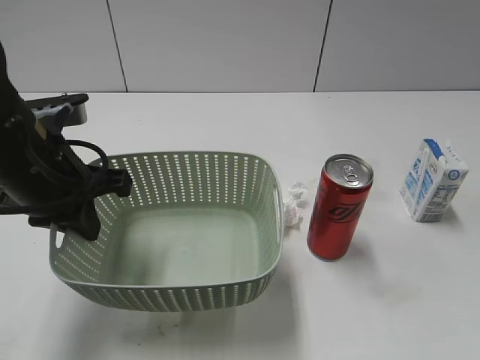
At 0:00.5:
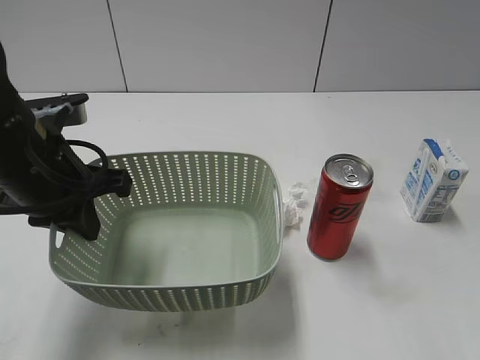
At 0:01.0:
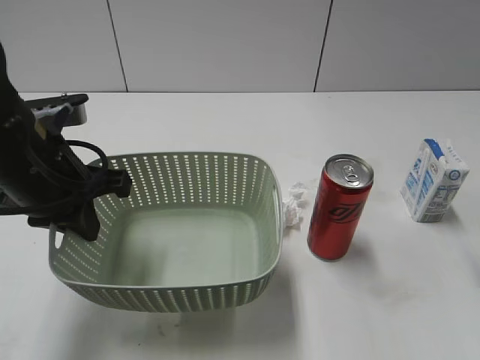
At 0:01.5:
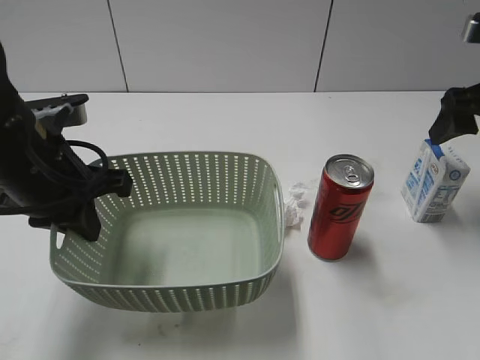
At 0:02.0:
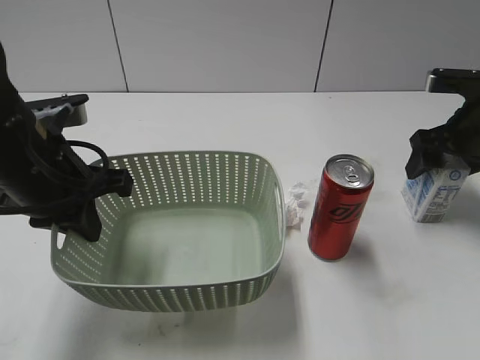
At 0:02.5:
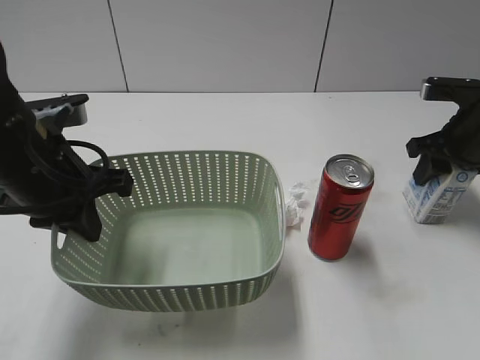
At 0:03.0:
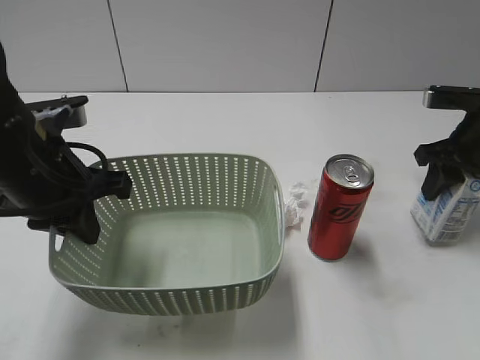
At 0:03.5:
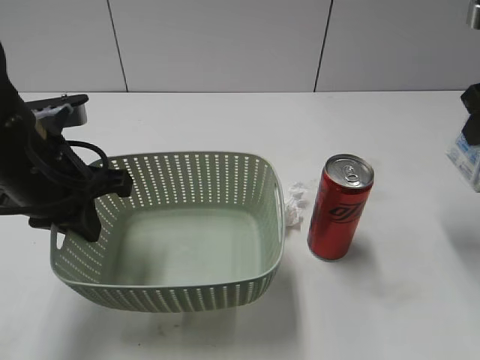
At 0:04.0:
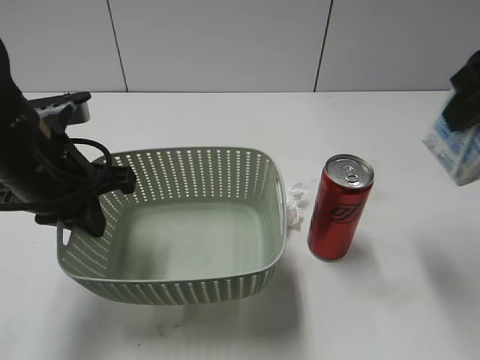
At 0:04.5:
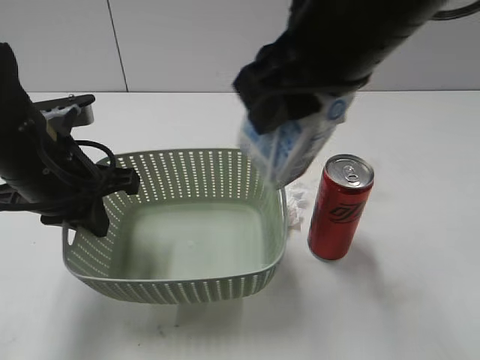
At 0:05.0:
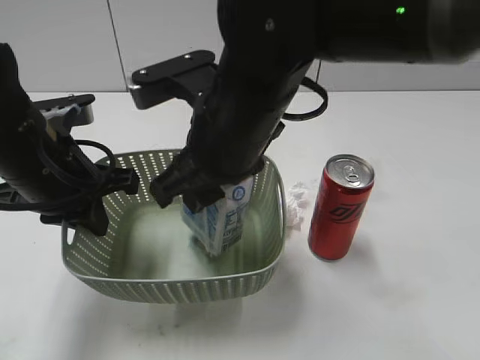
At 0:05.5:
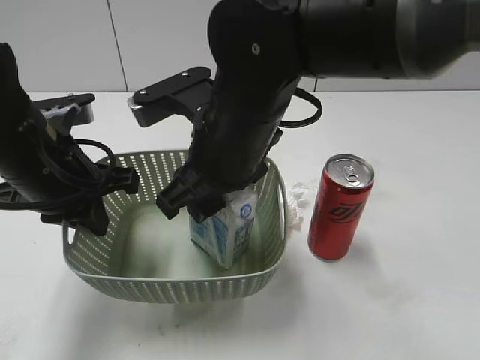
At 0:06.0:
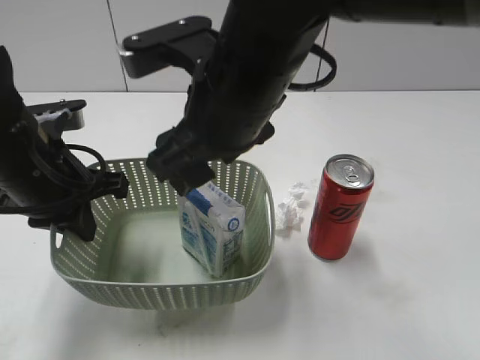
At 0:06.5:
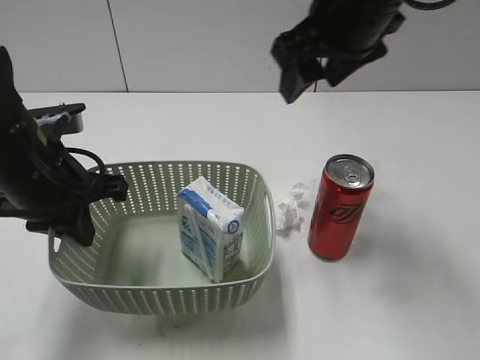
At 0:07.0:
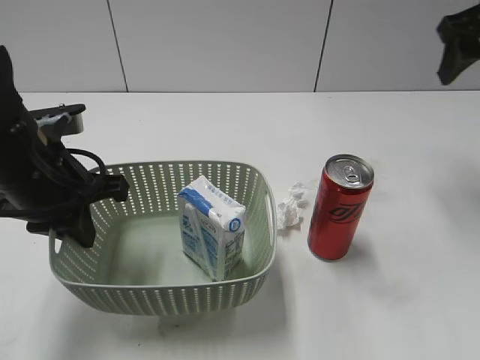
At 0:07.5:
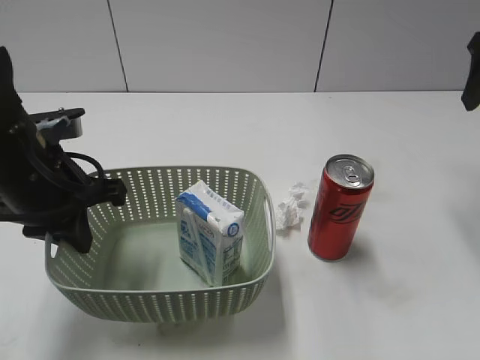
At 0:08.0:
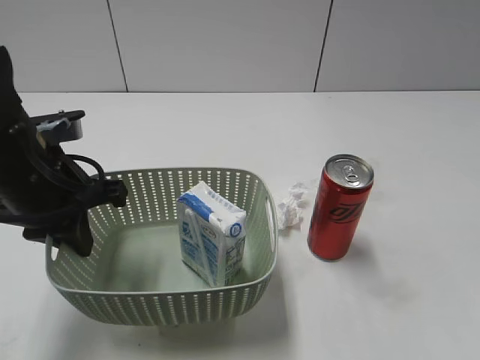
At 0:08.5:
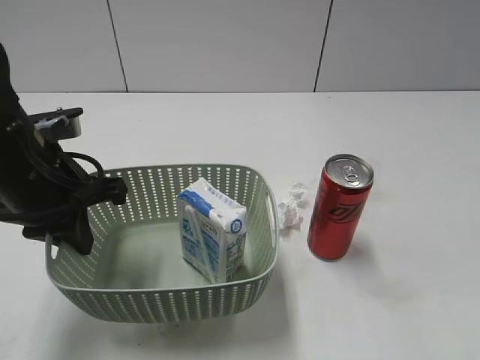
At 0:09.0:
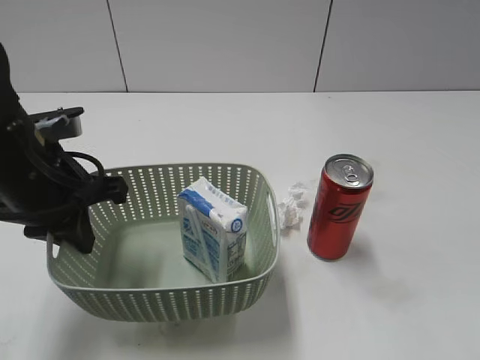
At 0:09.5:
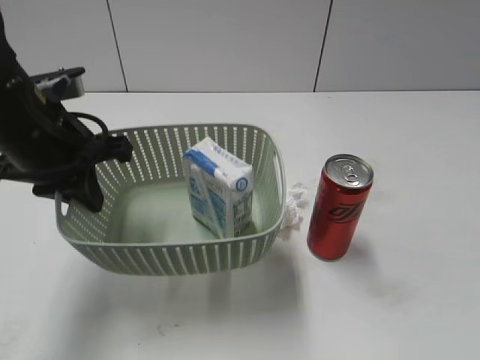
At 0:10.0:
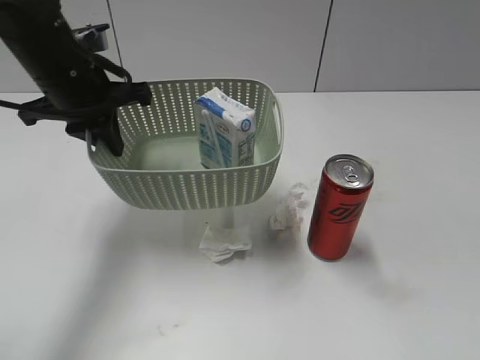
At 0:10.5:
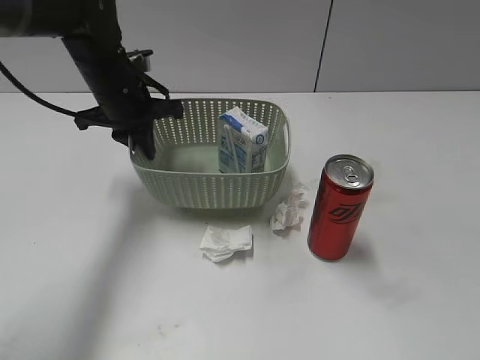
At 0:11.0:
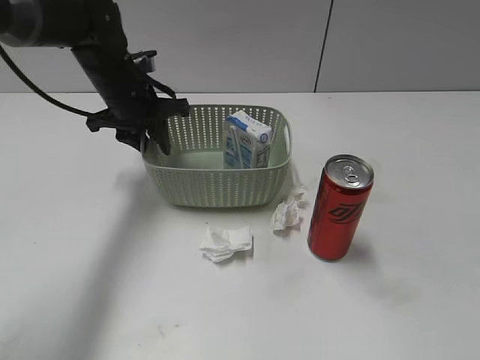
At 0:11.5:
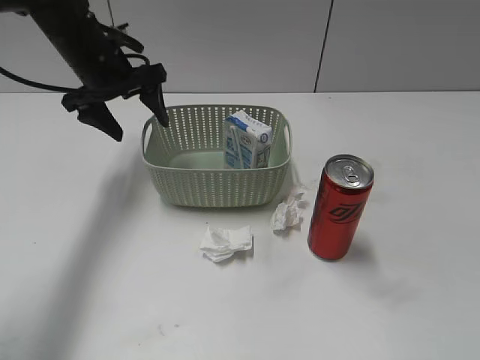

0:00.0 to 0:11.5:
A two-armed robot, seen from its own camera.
Step, 0:00.0 to 0:02.5: Grasp the milk with right gripper.
Step, 0:03.0 to 0:06.0: Place the milk in the basket with right gripper.
Step, 0:06.5 to 0:11.0: Place the basket on the table with left gripper.
0:00.0 to 0:02.0: The right gripper moves forward, approximately 35 cm.
0:02.0 to 0:04.0: The right gripper moves upward, backward and to the left, about 20 cm, and closes up.
0:04.0 to 0:06.0: The right gripper shifts approximately 25 cm to the left, and opens.
0:06.0 to 0:07.5: The right gripper goes about 30 cm to the right.
0:07.5 to 0:09.5: The right gripper moves backward, roughly 35 cm.
0:09.5 to 0:11.5: The left gripper shifts about 15 cm forward, and opens its fingers.

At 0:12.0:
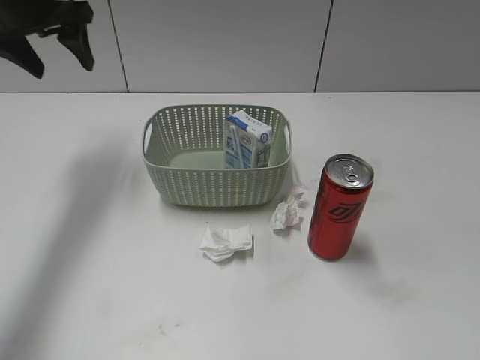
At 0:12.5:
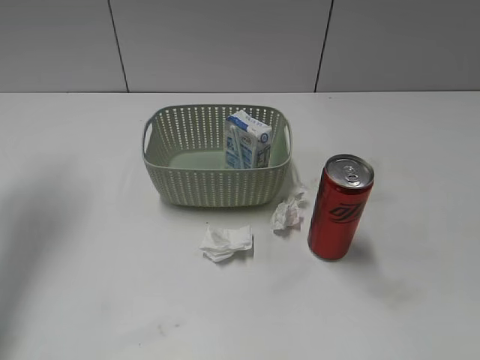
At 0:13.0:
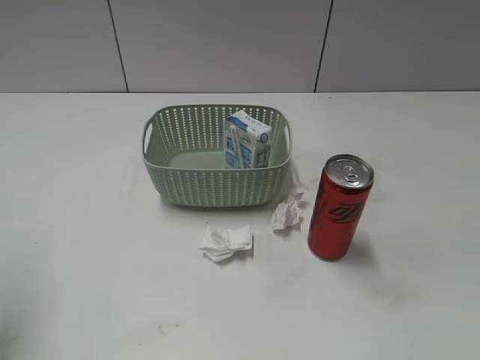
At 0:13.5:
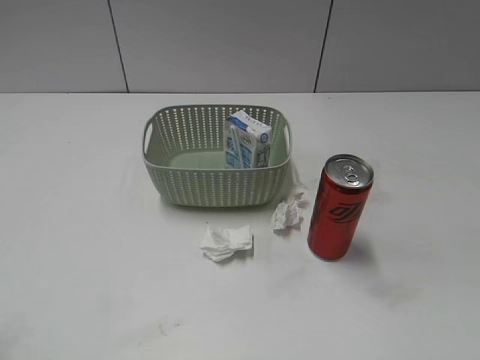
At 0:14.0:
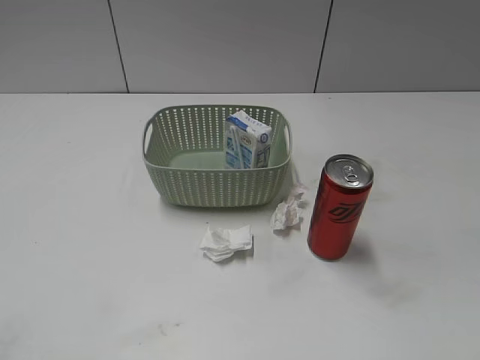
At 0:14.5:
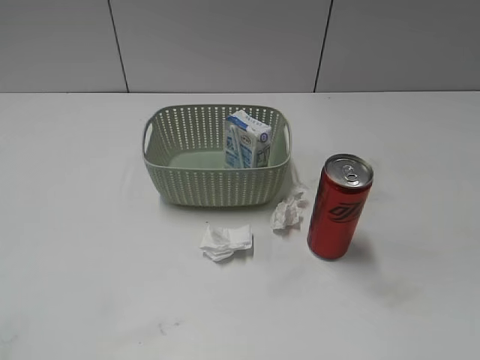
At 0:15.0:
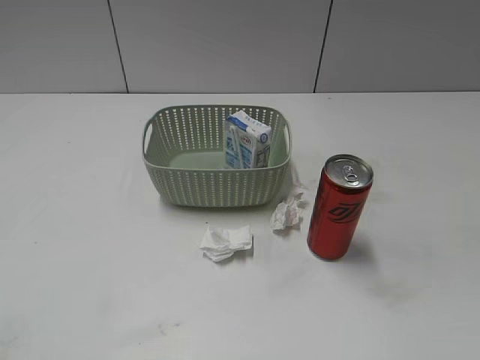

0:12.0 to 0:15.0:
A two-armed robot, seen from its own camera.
0:12.0 to 0:13.5: The left gripper is displaced backward by approximately 35 cm.
